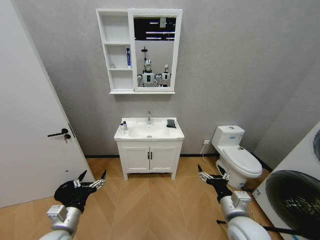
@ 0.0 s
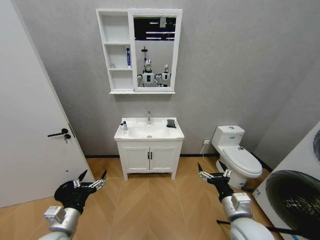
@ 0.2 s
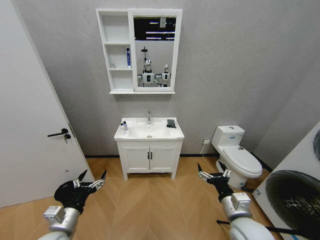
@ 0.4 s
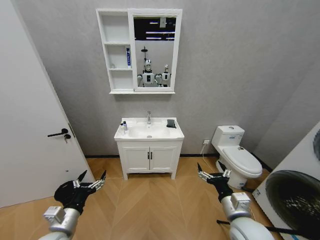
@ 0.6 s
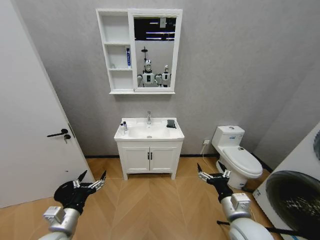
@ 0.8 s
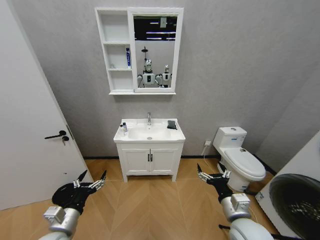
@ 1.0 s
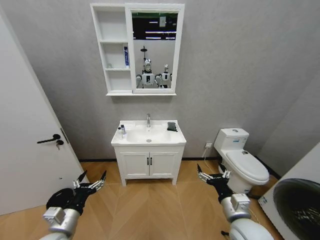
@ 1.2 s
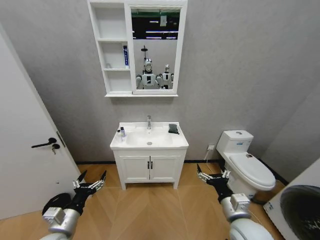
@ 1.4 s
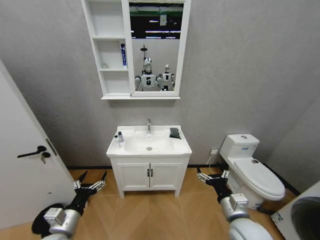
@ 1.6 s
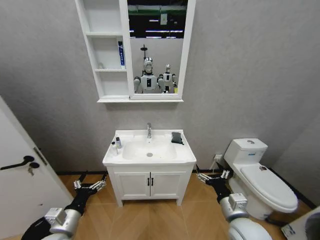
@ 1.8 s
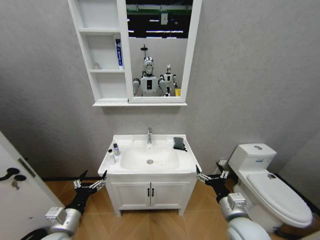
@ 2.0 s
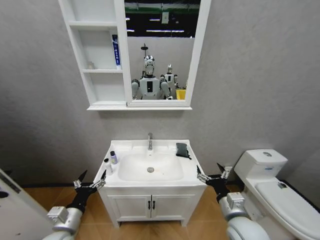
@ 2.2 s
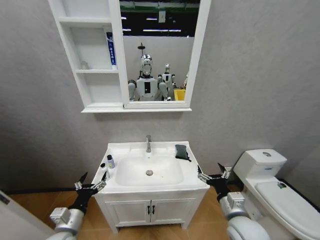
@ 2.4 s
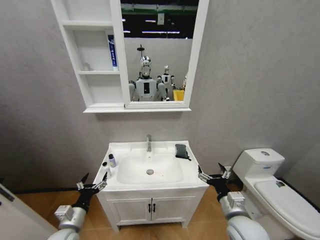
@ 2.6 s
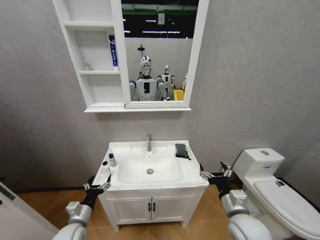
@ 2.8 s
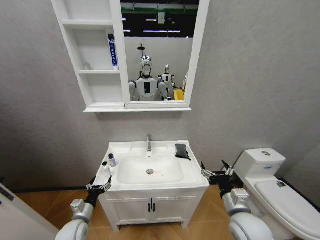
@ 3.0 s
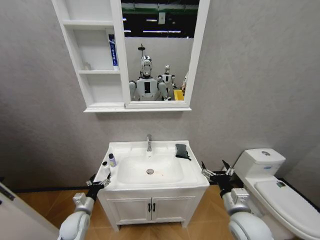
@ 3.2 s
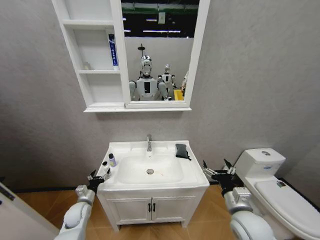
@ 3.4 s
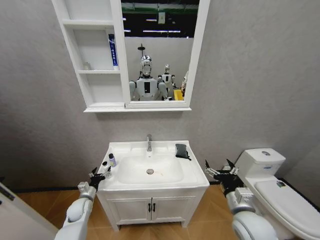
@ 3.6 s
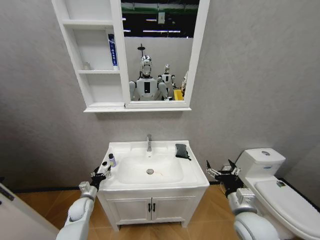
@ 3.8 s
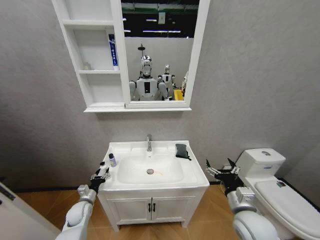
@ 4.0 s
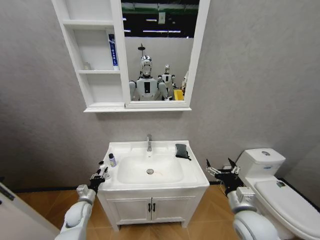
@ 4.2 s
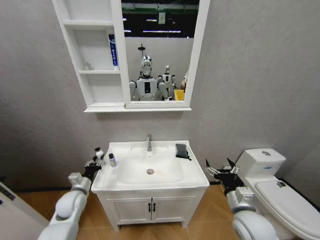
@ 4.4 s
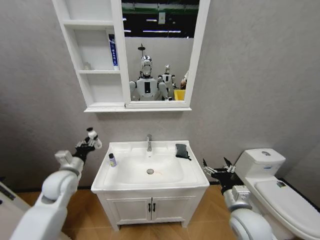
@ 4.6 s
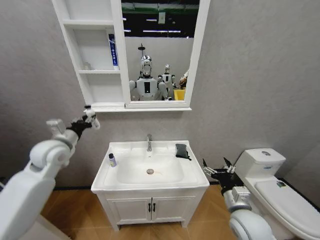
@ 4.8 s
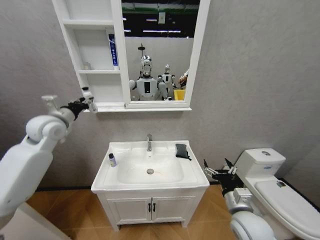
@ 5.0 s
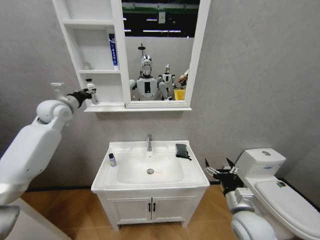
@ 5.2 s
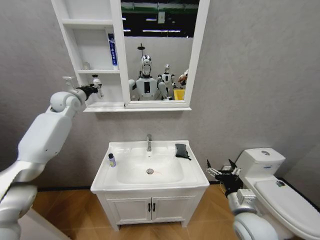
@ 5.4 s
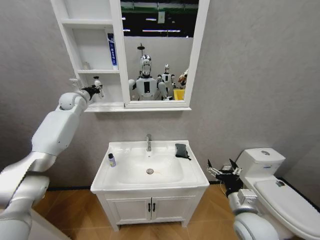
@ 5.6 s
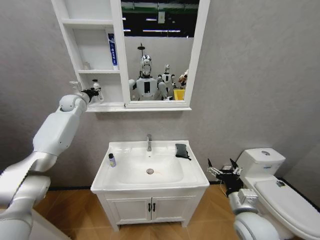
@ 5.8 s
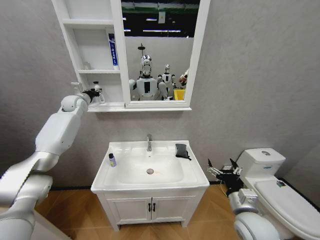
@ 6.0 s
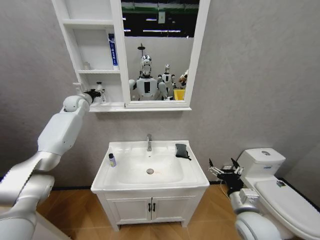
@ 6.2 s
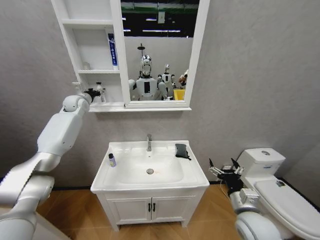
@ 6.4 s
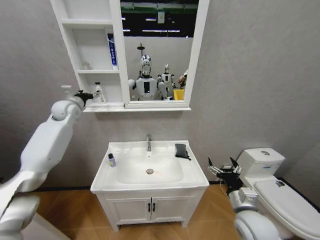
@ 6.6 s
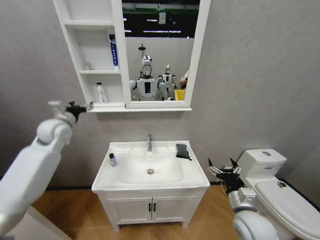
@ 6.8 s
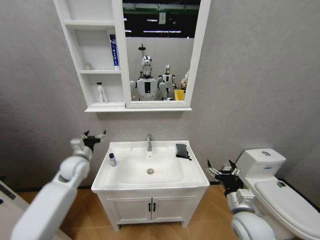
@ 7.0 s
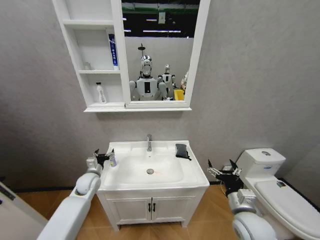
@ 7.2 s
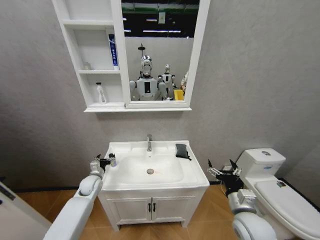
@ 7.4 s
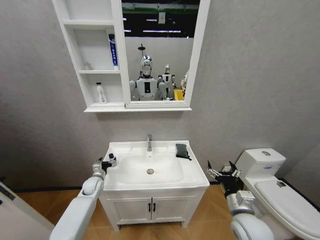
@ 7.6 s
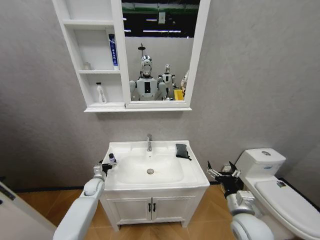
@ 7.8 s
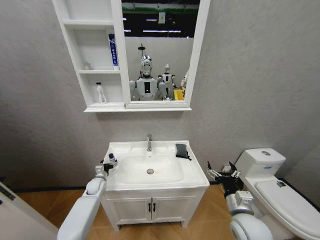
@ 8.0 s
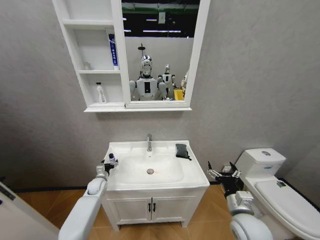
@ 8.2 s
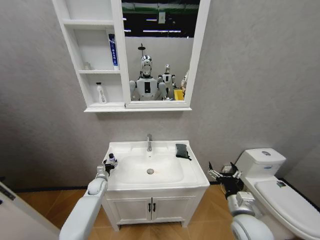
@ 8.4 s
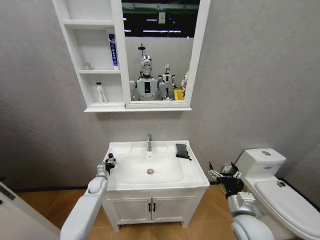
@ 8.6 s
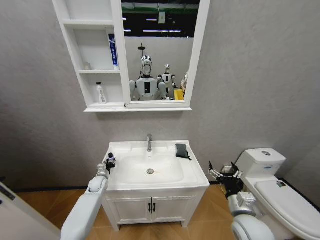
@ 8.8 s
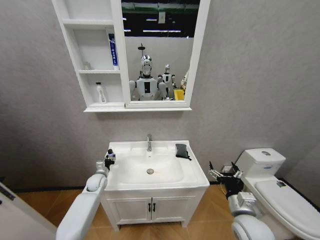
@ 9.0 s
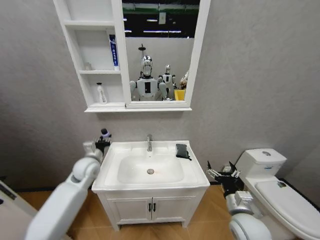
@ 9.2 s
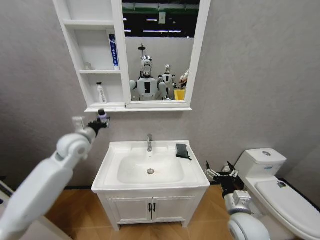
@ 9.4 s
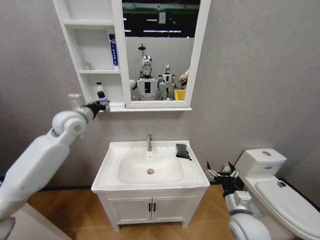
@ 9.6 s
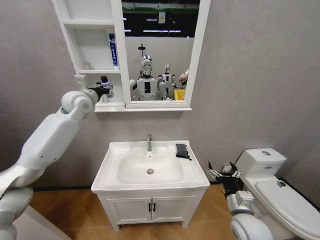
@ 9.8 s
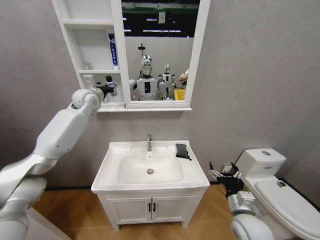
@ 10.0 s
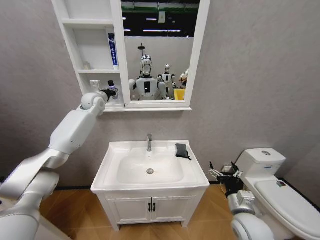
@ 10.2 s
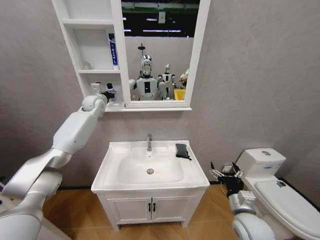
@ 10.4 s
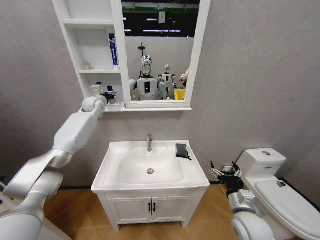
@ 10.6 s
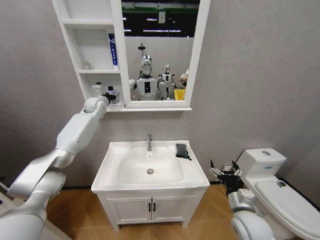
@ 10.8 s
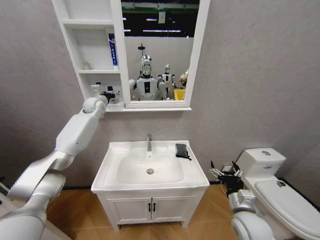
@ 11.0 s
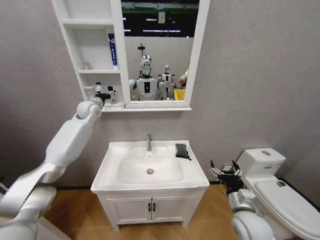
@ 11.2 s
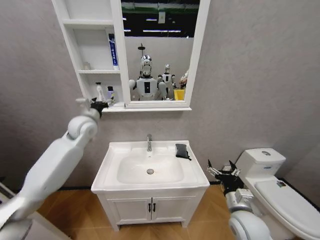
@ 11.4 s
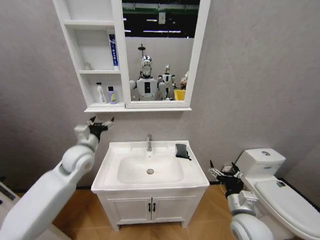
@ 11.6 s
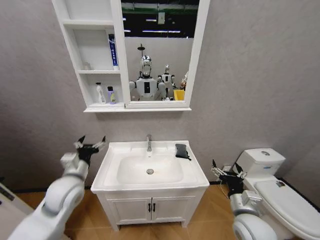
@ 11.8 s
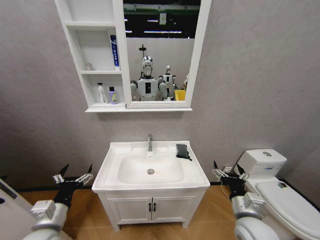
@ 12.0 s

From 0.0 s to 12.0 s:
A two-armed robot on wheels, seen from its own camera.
Task of the whole recording: Move facial cleanser and shampoo from washbasin to cabinet, then wipe washbasin with towel.
From 1.6 s to 3.0 s: The left gripper shifts approximately 10 cm downward and forward.
From 3.0 s to 4.4 s: The left gripper is displaced forward by approximately 10 cm, and closes.
From 4.4 s to 6.0 s: The left gripper shifts some 50 cm upward and forward.
From 6.0 s to 7.6 s: The left gripper heads downward and backward, covering about 40 cm, and opens up.
From 7.6 s to 9.0 s: The left gripper closes.
From 9.0 s to 10.4 s: The left gripper moves upward and forward, roughly 40 cm.
From 10.4 s to 12.0 s: The left gripper goes approximately 50 cm backward and downward, and opens up.

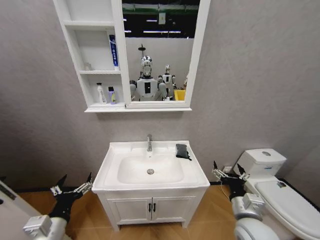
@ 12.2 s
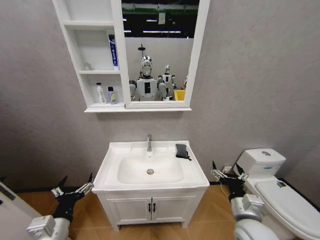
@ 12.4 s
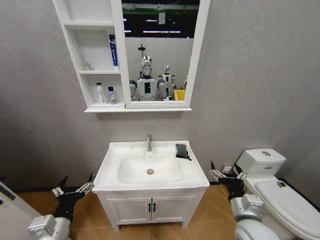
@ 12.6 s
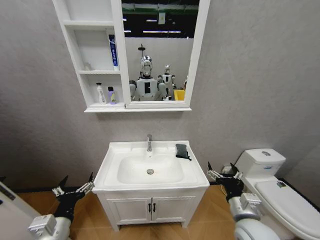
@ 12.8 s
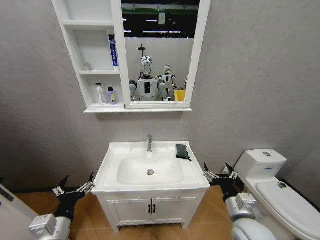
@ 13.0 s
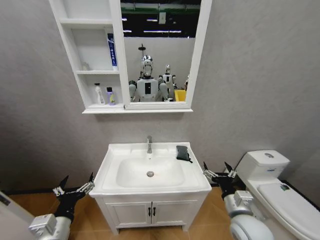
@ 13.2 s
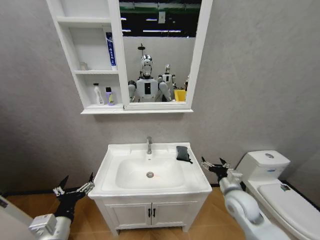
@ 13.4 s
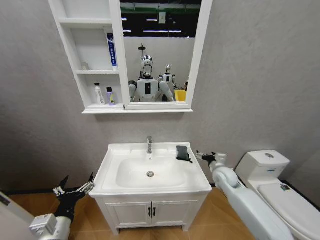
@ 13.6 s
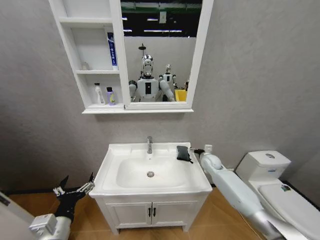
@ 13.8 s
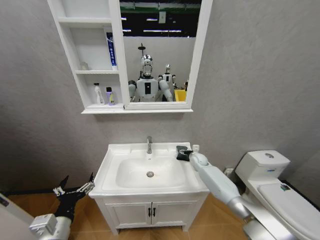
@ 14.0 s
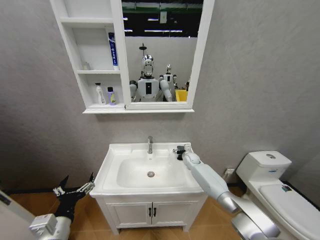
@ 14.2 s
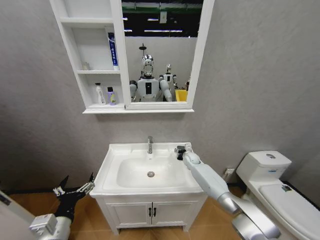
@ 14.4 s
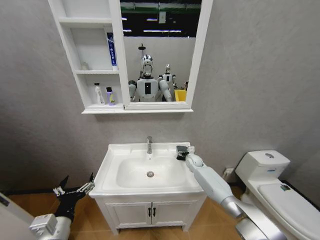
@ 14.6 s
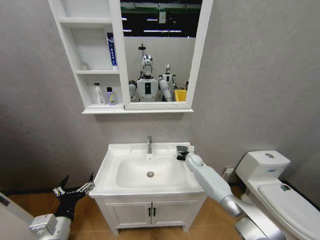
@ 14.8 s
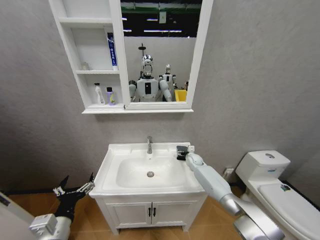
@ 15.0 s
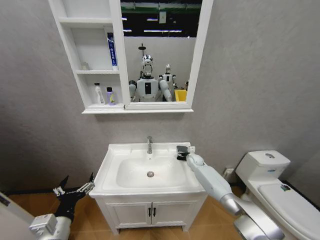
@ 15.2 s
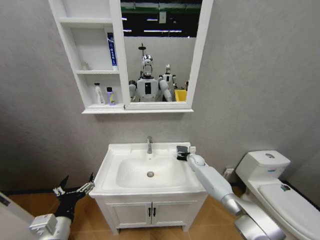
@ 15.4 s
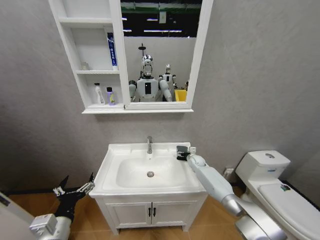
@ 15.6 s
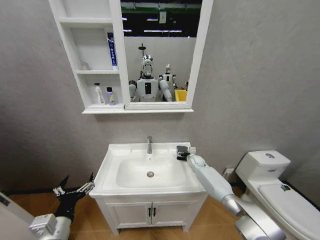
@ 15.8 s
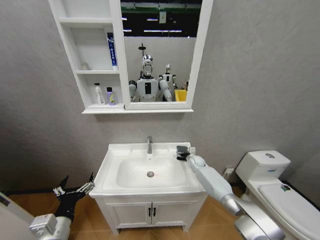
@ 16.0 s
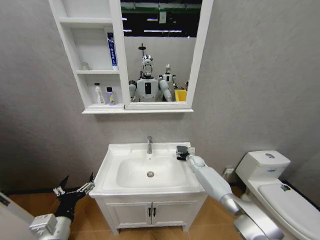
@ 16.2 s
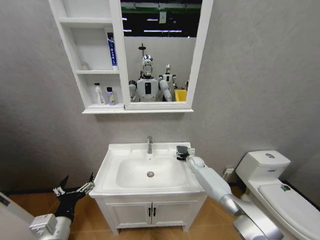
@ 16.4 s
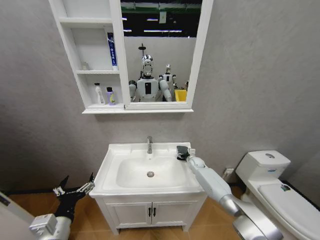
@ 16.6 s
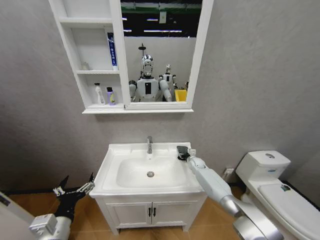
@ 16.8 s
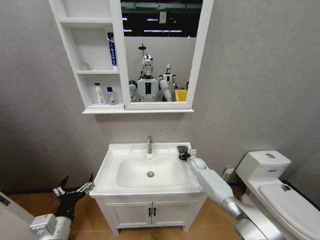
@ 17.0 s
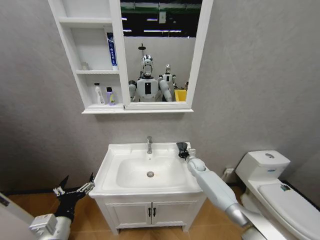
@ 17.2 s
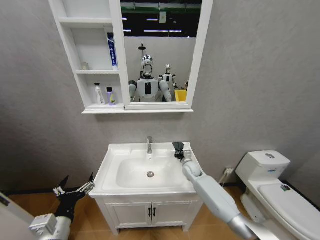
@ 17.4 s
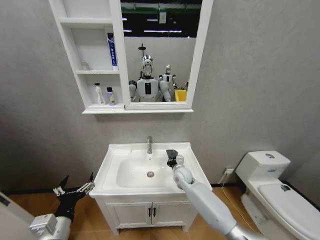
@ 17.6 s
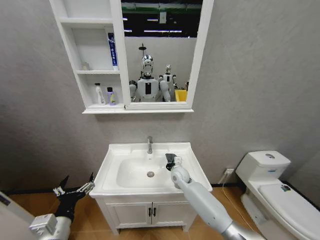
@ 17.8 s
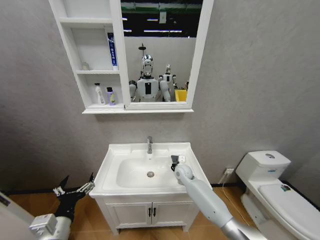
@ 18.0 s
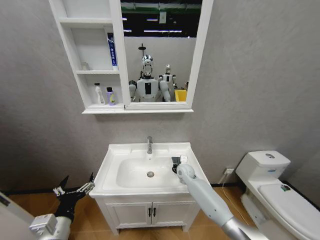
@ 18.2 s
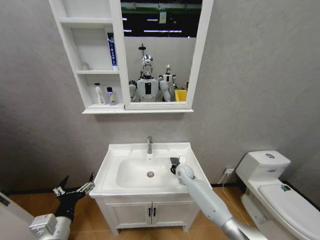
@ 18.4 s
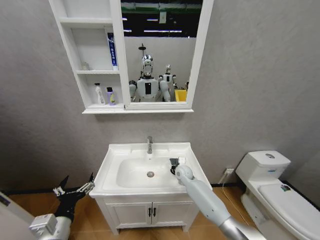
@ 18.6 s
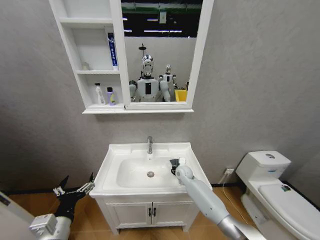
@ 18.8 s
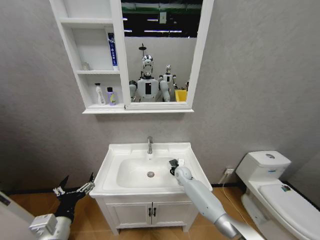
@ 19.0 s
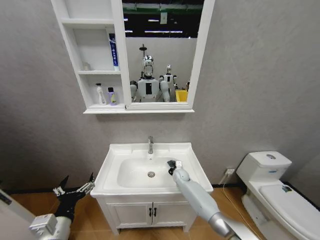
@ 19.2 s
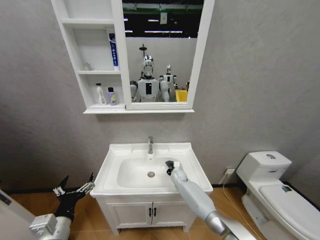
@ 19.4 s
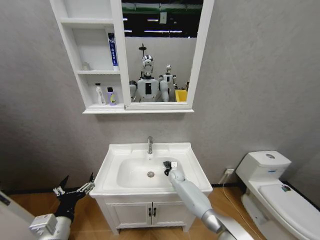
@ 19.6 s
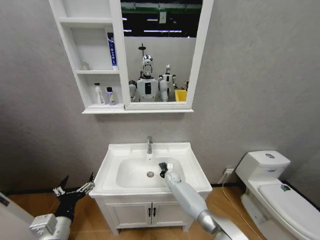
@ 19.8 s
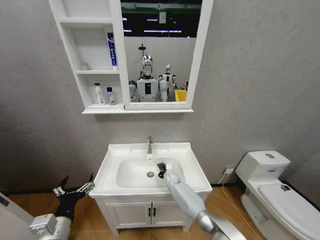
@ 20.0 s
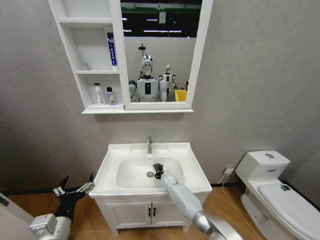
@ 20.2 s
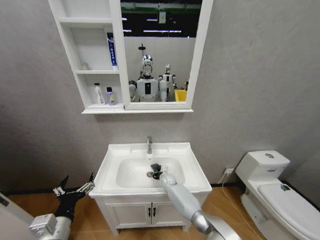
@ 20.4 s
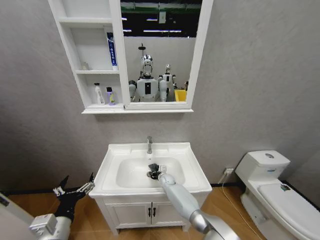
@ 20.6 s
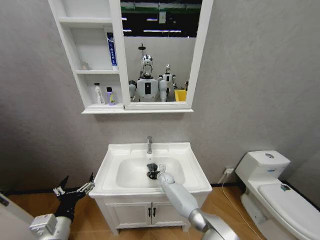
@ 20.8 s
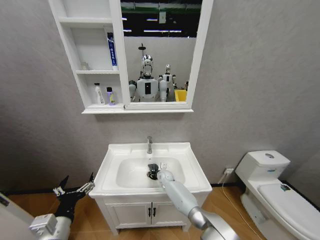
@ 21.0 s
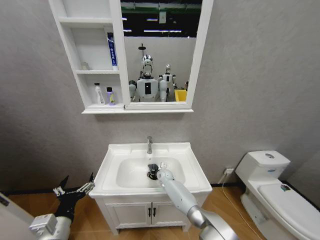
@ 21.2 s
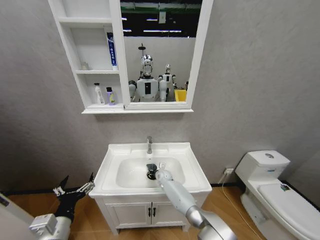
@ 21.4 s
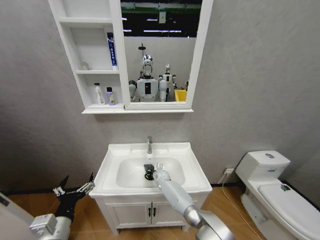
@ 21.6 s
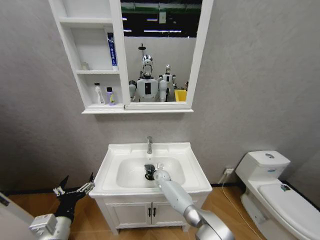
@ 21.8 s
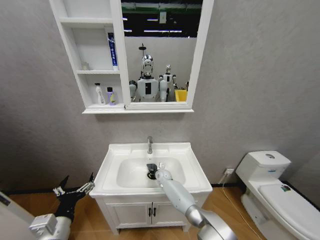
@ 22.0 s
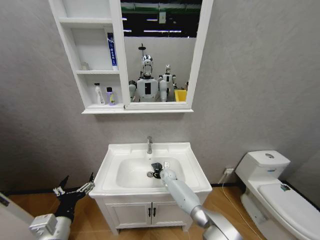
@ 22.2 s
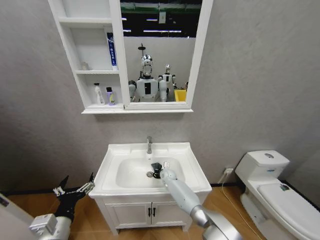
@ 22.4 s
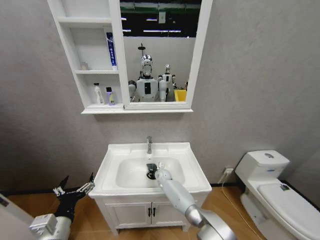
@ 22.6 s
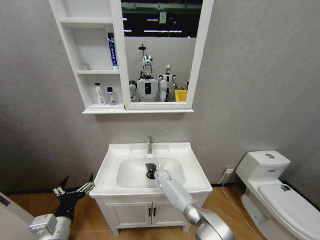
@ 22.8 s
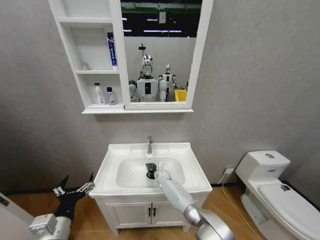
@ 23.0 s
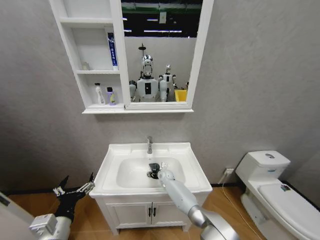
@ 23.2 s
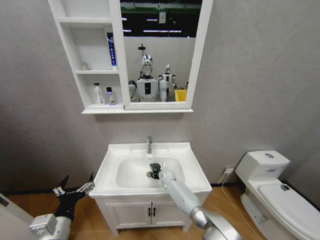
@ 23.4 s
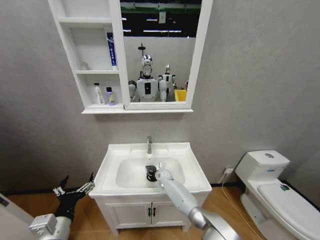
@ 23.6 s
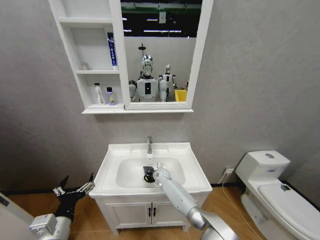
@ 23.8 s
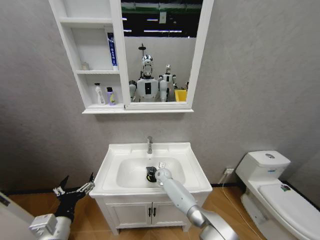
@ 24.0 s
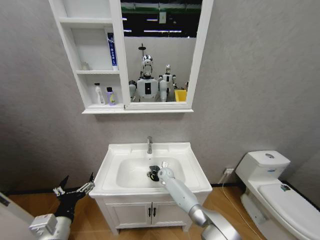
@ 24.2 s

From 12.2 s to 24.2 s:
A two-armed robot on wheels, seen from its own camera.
Task of the whole recording: Move facial cleanser and shampoo from washbasin to cabinet, then wipe washbasin with towel.
From 12.2 s to 13.8 s: The right gripper travels forward by approximately 30 cm.
From 13.8 s to 15.2 s: The right gripper travels forward, downward and to the left by about 10 cm.
From 15.2 s to 16.6 s: The grippers make only small movements.
From 16.6 s to 18.2 s: The right gripper is displaced to the left and backward by approximately 15 cm, and closes.
From 18.2 s to 19.8 s: The right gripper heads downward, covering about 10 cm.
From 19.8 s to 21.2 s: The right gripper heads to the left, covering approximately 5 cm.
From 21.2 s to 24.2 s: The grippers make only small movements.
